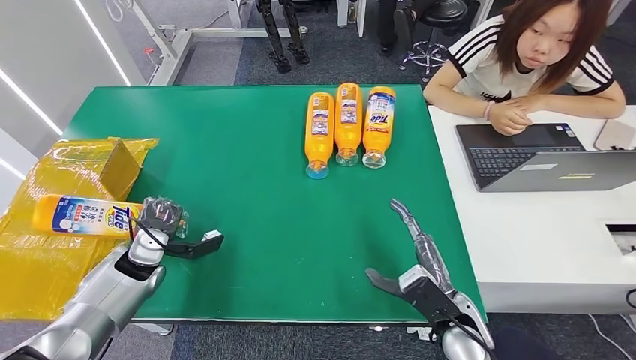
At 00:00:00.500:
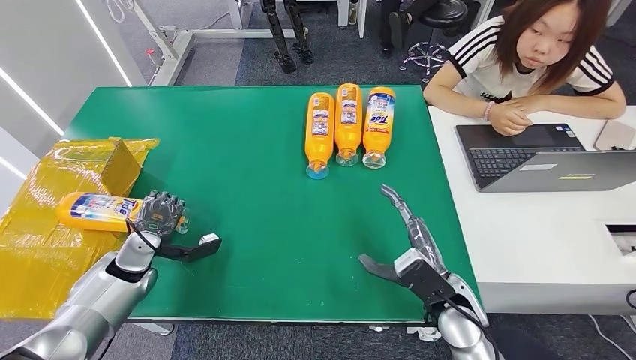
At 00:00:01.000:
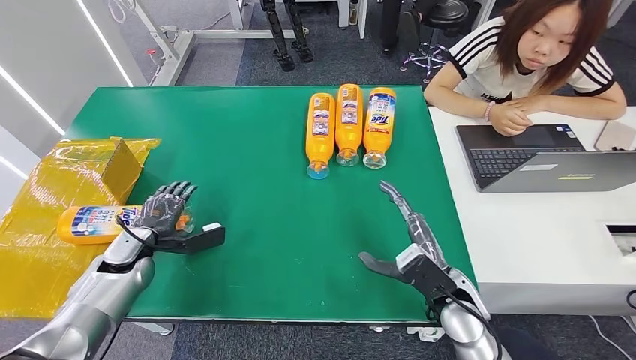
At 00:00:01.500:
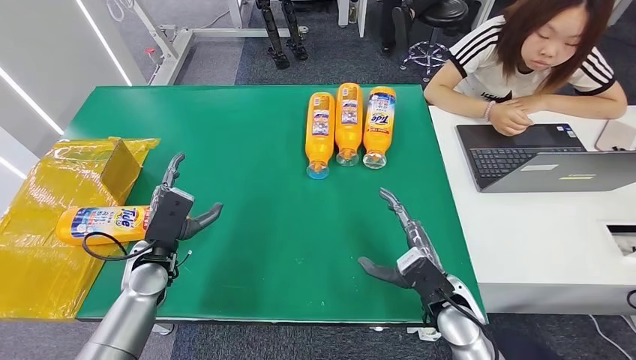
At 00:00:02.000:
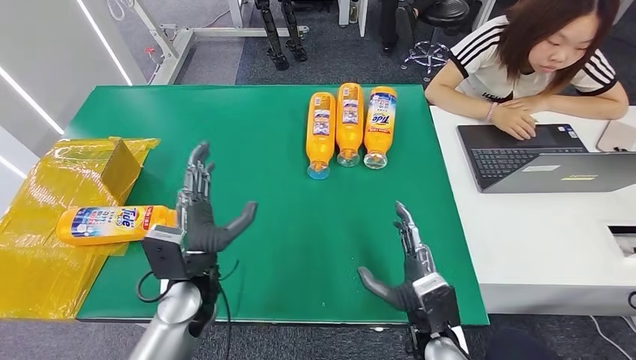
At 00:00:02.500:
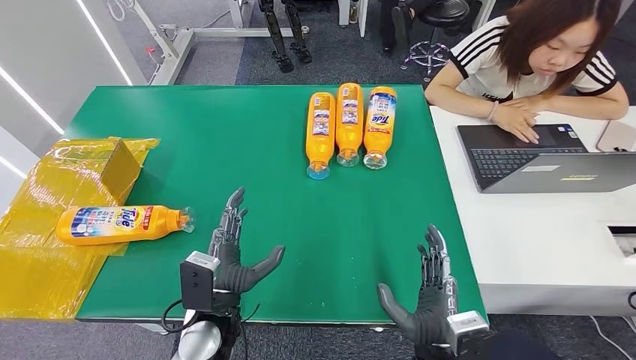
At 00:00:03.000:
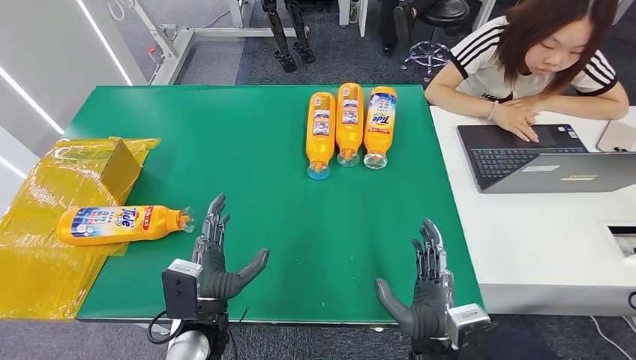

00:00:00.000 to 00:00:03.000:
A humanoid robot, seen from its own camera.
Step, 00:00:00.000 to 00:00:03.000: Turn the bottle to the front side.
00:00:00.000 to 00:00:01.500: The left hand ends up some 5 cm from where it was.
00:00:01.500 to 00:00:03.000: The left hand moves to the right and backward, approximately 15 cm, while the right hand shifts roughly 10 cm backward and to the left.
